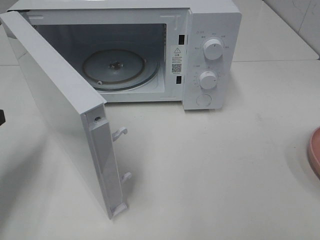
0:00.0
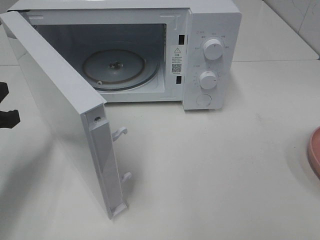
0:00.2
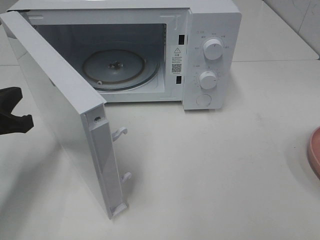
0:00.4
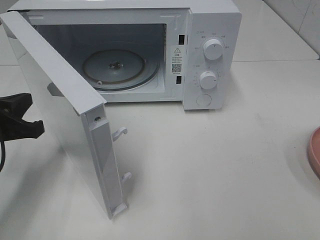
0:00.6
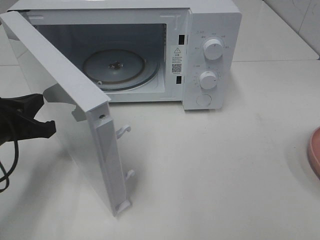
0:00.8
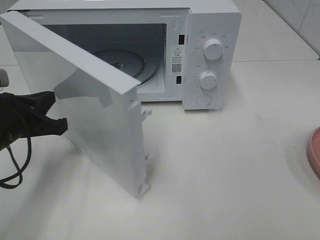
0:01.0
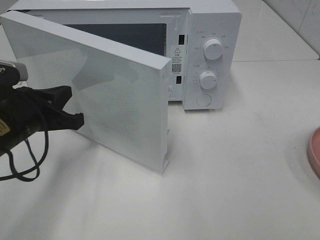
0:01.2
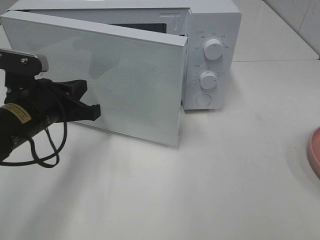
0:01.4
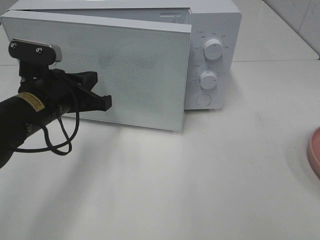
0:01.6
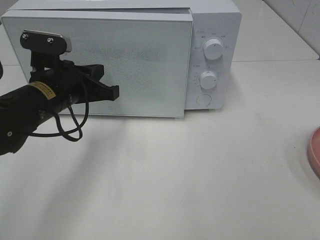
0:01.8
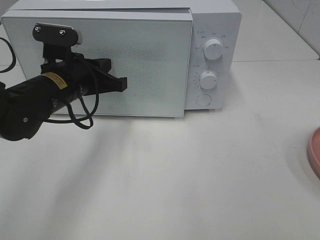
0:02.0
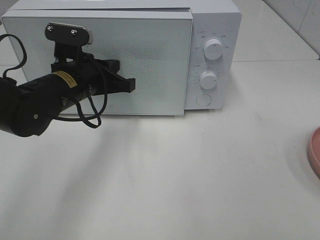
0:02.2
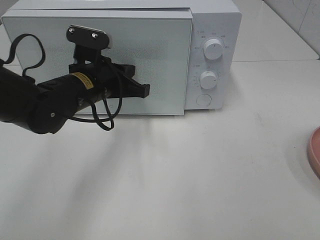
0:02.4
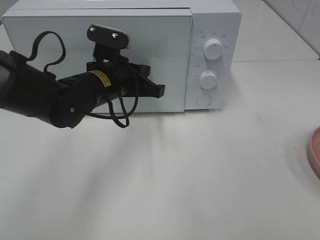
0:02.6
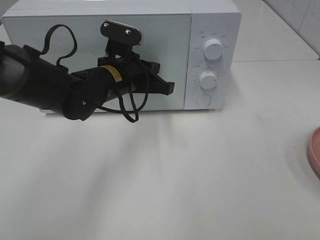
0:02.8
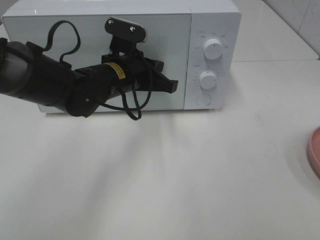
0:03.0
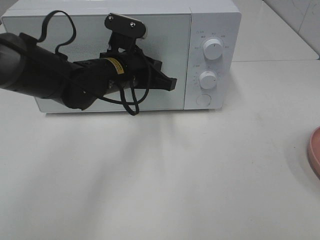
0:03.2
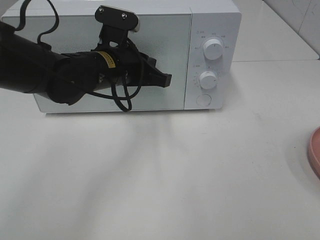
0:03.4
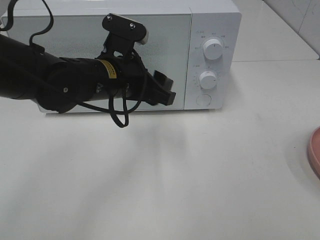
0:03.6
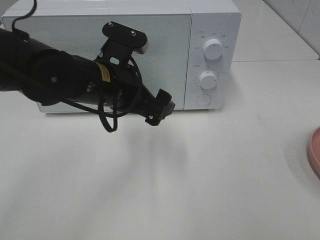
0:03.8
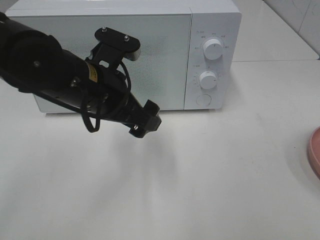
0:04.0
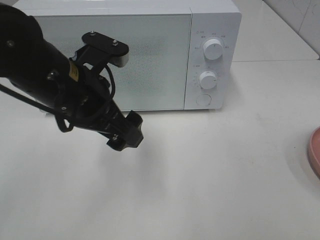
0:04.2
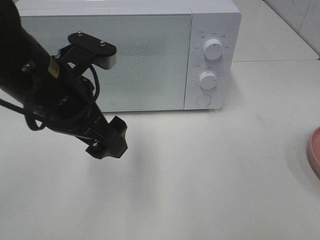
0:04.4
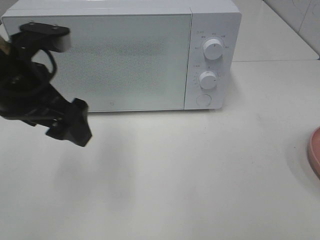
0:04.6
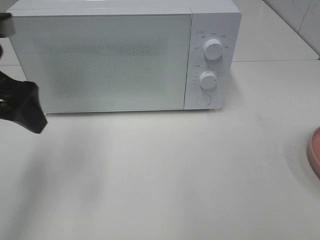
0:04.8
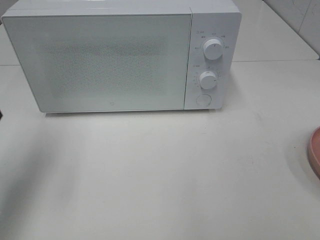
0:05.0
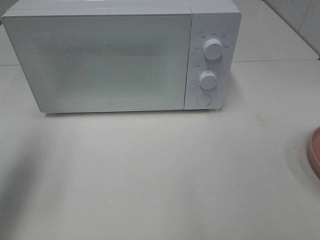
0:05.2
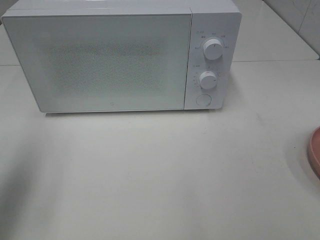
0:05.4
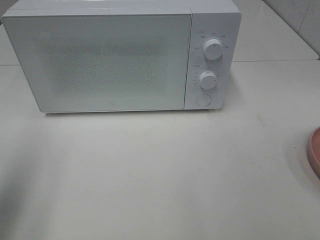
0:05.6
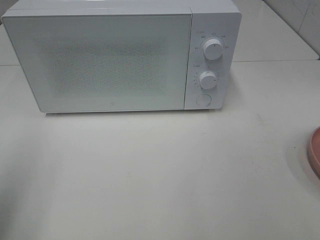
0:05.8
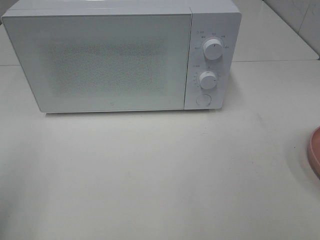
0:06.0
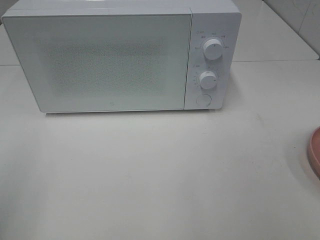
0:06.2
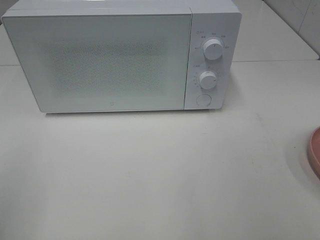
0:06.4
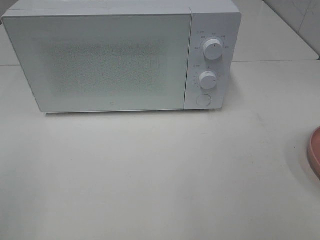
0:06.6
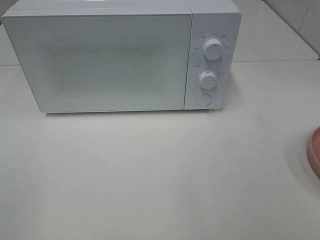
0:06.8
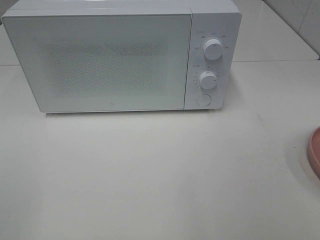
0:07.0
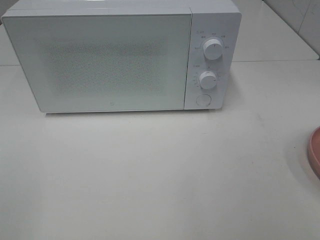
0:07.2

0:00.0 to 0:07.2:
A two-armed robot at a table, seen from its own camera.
Task of the whole recording: Heat the burger.
Step, 0:00.0 to 0:03.6: Left hand: close the microwave door.
0:00.0 to 0:01.4: The left gripper travels to the right by roughly 10 cm.
0:01.4 to 0:02.8: The left gripper moves to the right and forward, about 15 cm.
0:02.8 to 0:04.4: The left gripper goes about 15 cm backward, upward and to the left, and opens its fingers.
0:04.4 to 0:05.8: The left gripper goes roughly 20 cm to the left and backward.
0:05.8 to 0:07.2: The left gripper goes roughly 10 cm backward.

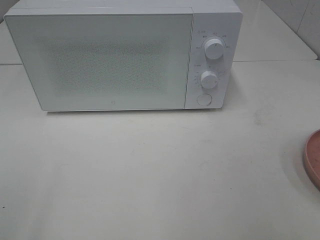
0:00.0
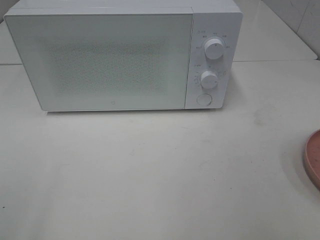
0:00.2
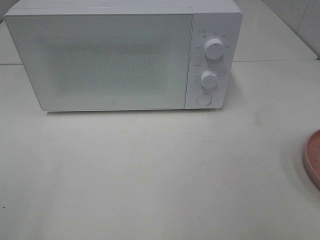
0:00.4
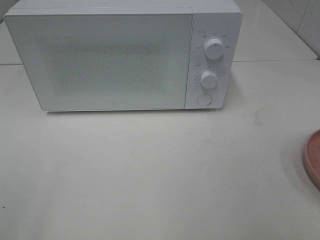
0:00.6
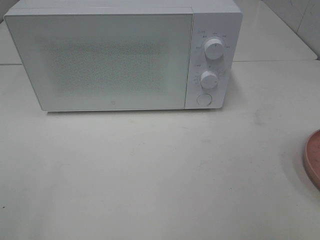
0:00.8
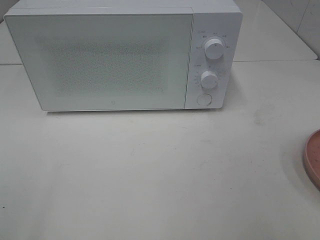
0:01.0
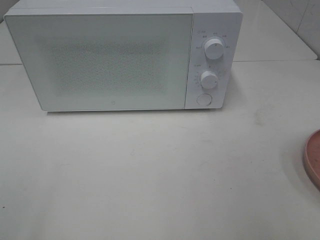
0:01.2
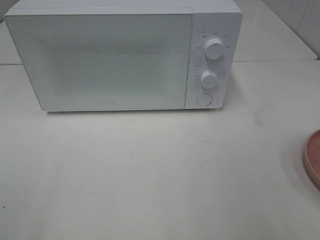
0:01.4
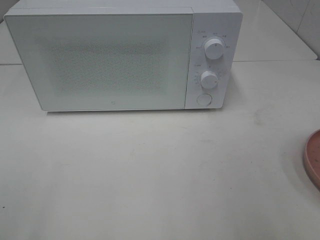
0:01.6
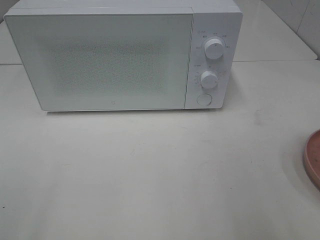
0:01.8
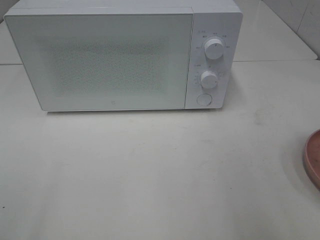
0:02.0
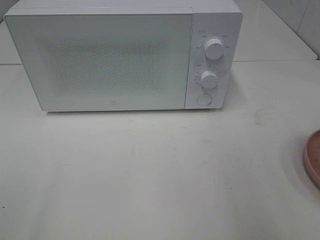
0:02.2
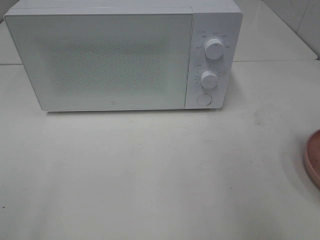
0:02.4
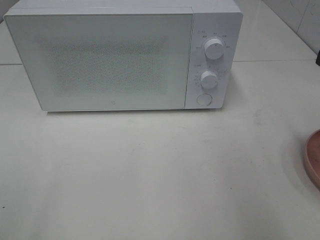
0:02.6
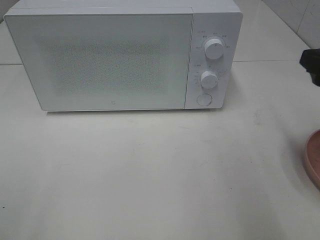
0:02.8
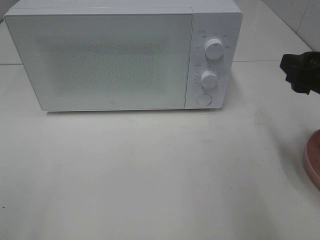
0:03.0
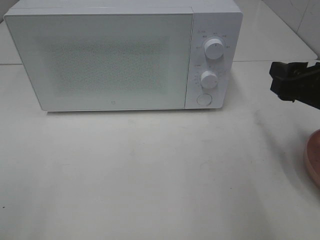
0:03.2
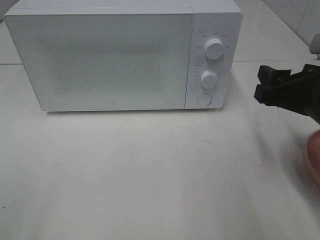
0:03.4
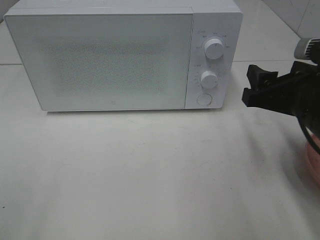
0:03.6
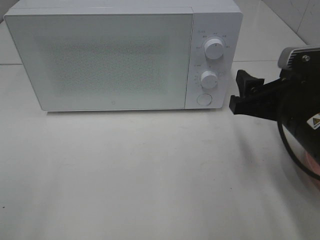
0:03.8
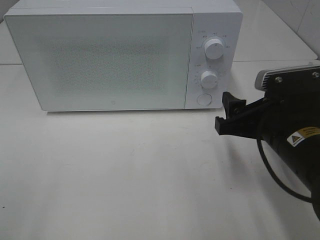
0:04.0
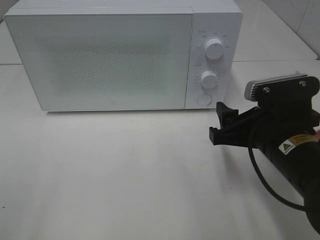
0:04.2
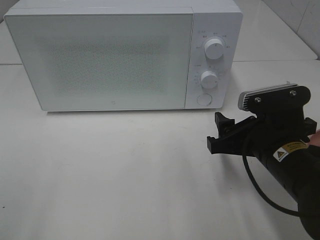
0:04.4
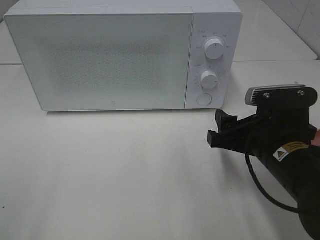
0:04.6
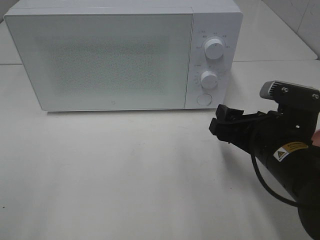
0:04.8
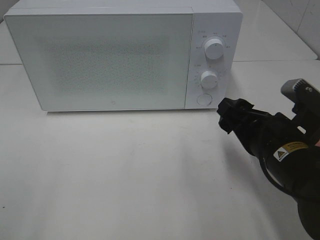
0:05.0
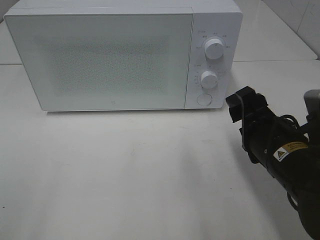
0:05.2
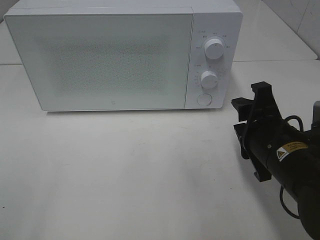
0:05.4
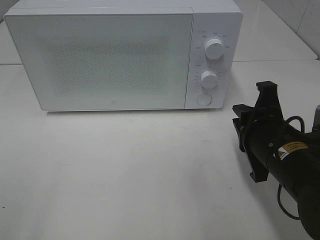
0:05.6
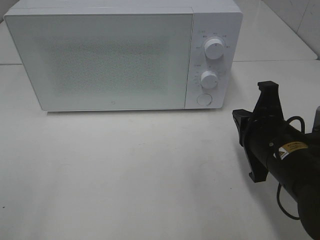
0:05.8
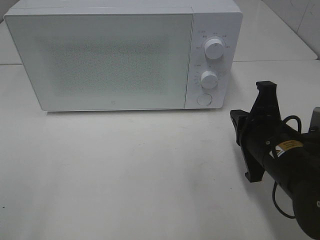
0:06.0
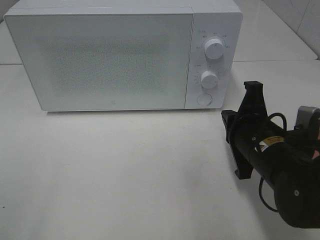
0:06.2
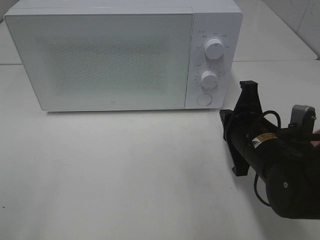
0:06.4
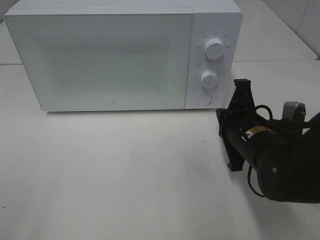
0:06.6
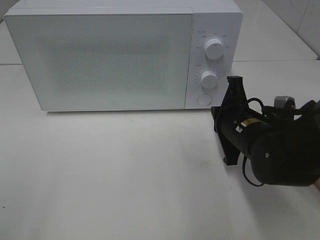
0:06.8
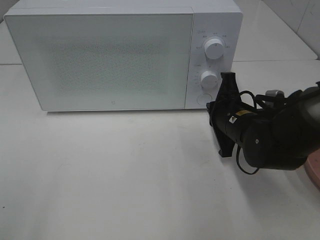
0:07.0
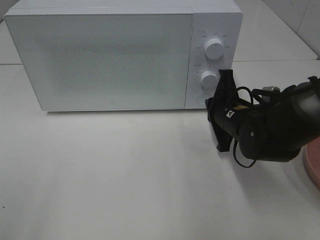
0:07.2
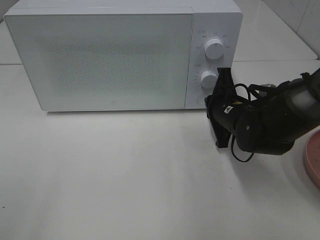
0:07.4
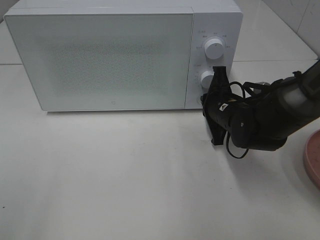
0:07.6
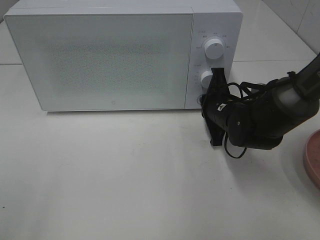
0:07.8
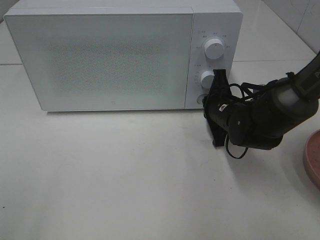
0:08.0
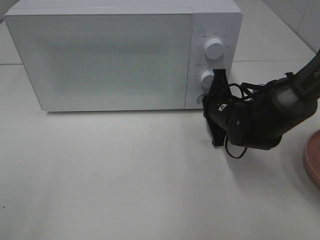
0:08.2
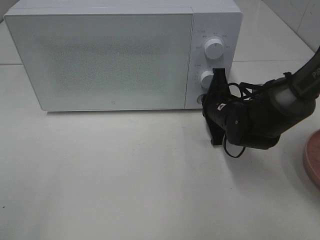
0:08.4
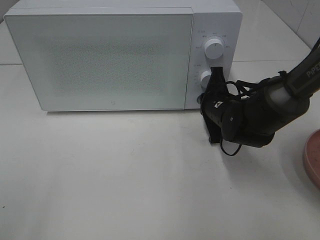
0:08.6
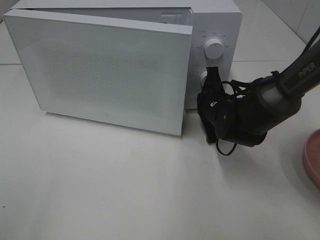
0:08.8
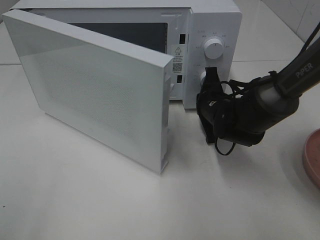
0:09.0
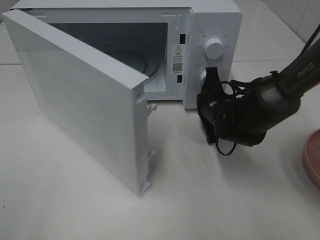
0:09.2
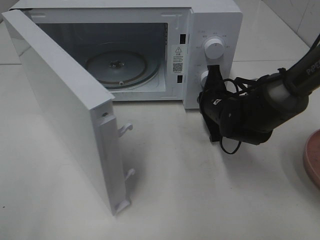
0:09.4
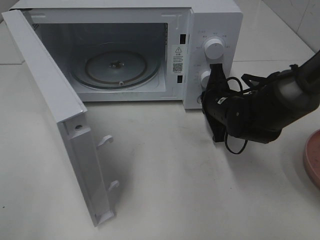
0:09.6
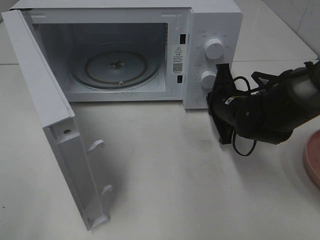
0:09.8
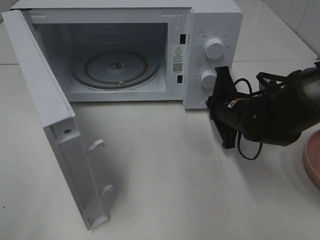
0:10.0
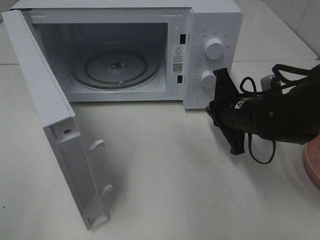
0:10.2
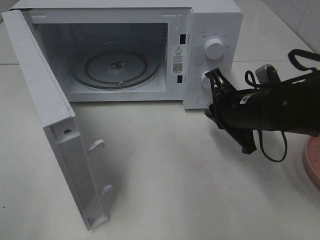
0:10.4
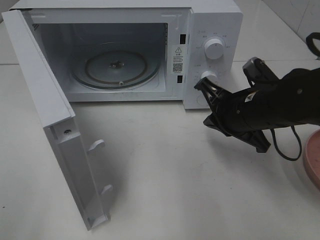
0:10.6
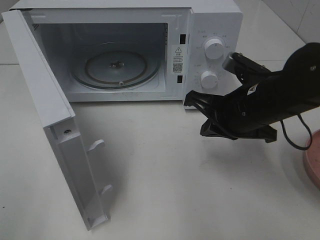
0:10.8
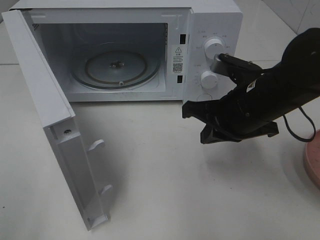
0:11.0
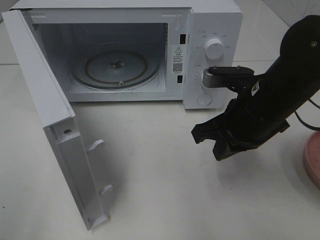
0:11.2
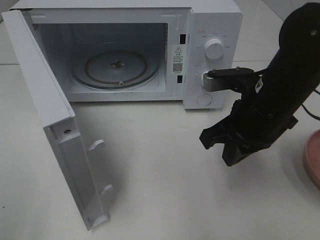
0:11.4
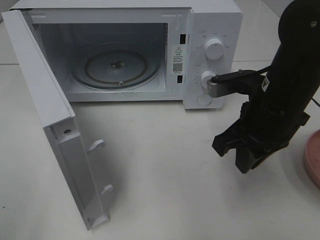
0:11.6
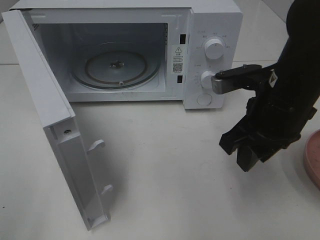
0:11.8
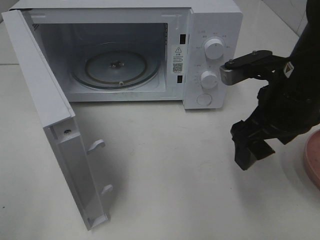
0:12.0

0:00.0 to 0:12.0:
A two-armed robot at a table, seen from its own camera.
Task of the whole recording: Heat the burger.
Step, 0:00.0 to 0:10.2: Right hand: press the switch.
0:01.6 to 0:03.0: The right gripper travels forward and downward by approximately 15 cm.
0:03.0 to 0:04.4: The right gripper goes about 15 cm downward and to the left.
0:04.4 to 0:06.0: The right gripper closes up.
0:06.0 to 0:07.6: The right gripper travels forward by approximately 15 cm.
0:09.0 to 0:10.4: The right gripper heads backward and upward, covering about 10 cm.
0:10.4 to 0:12.0: The right gripper heads upward and backward, covering approximately 10 cm, and opens up.

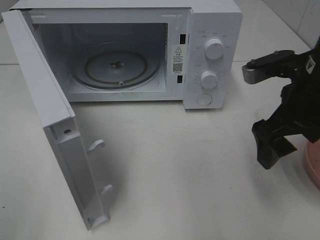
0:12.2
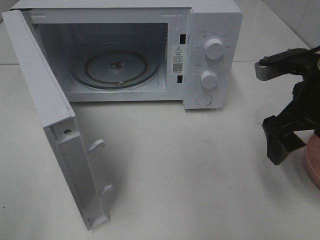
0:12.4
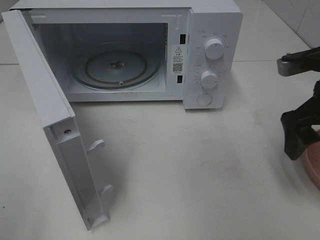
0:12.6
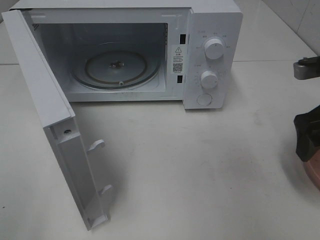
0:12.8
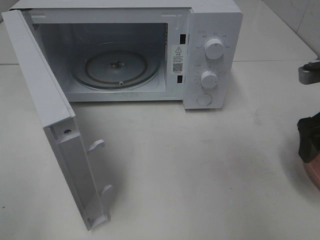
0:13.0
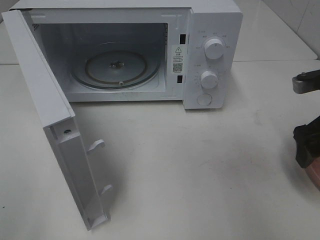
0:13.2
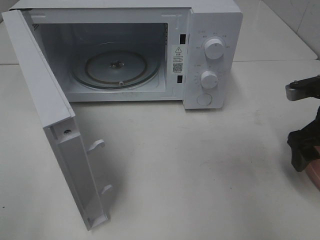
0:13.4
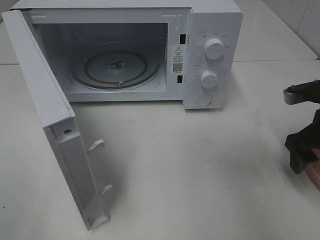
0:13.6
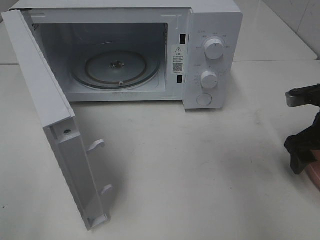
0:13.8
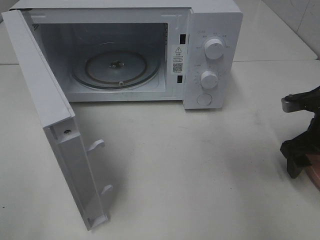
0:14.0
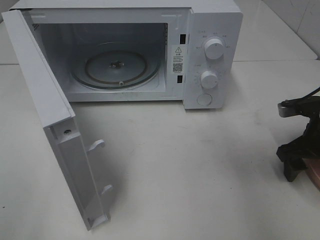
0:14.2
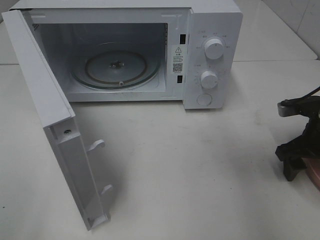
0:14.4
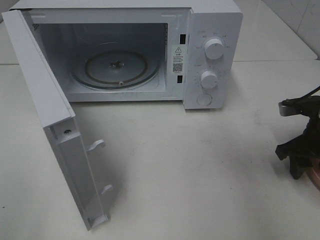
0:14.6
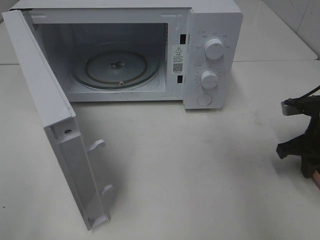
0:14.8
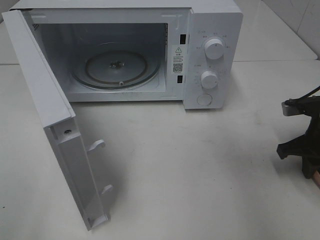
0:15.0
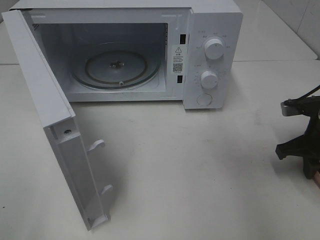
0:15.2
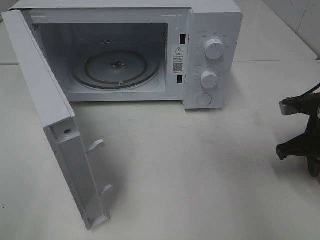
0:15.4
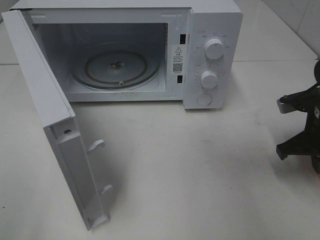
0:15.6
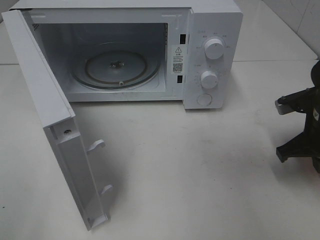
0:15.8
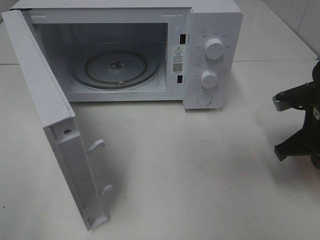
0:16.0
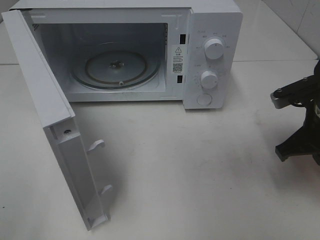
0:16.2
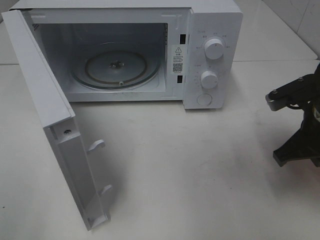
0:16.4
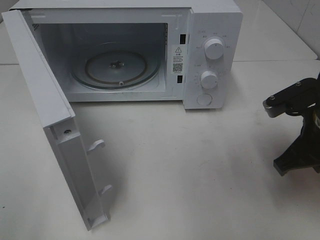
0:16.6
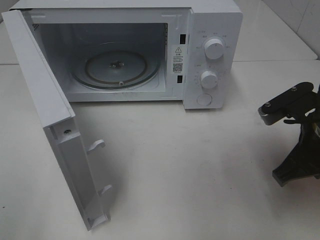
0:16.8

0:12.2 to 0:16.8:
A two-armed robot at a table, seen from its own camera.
Task of the whole recording: Heat the burger.
Step, 0:12.2 to 0:15.6: Right hand: grab the plate with the hamburger.
0:12.2 to 0:13.8: The right gripper heads to the right and downward, covering roughly 15 cm.
0:13.8 to 0:15.2: The right gripper closes its fingers.
0:15.2 to 0:16.8: The right gripper travels to the left, backward and upward by roughly 15 cm.
